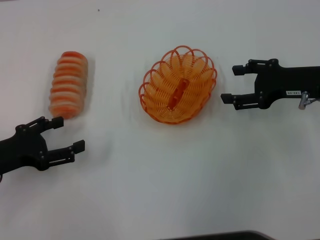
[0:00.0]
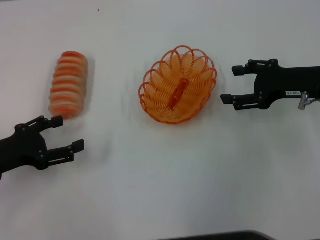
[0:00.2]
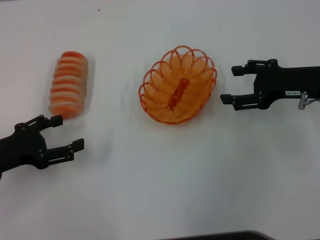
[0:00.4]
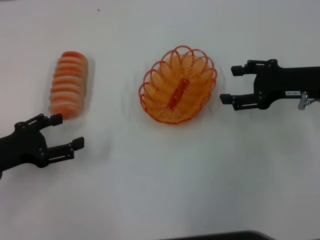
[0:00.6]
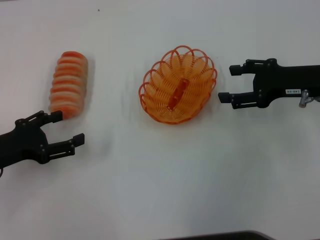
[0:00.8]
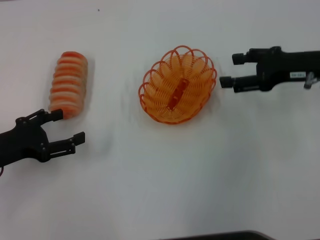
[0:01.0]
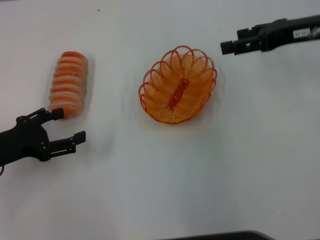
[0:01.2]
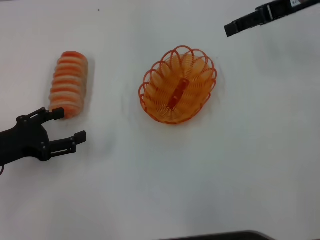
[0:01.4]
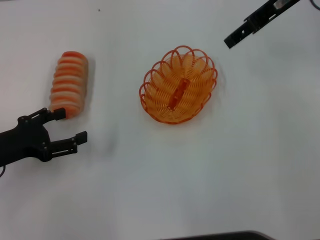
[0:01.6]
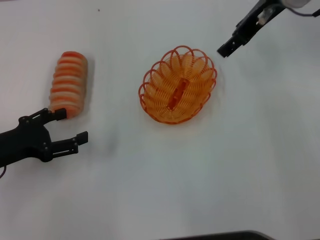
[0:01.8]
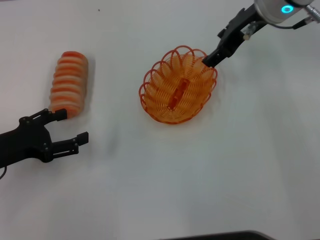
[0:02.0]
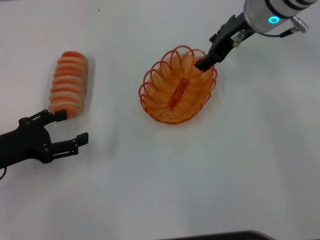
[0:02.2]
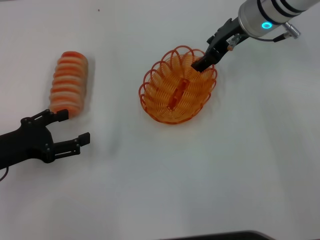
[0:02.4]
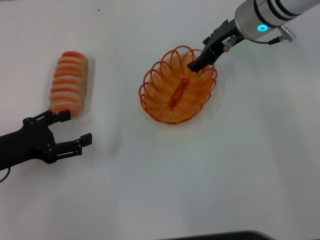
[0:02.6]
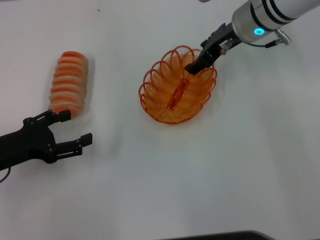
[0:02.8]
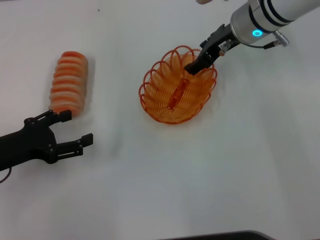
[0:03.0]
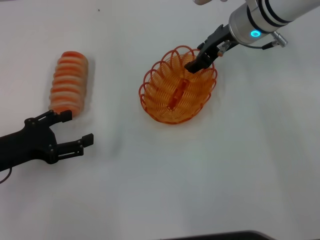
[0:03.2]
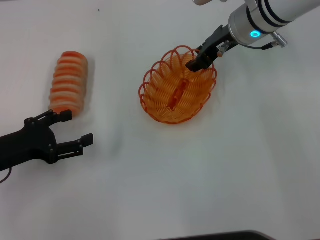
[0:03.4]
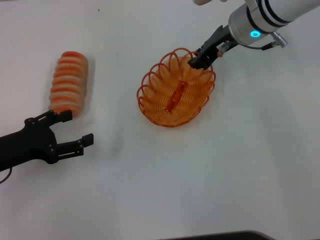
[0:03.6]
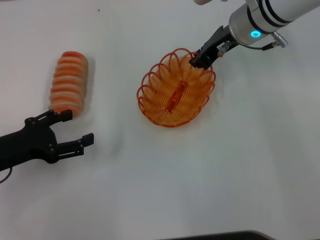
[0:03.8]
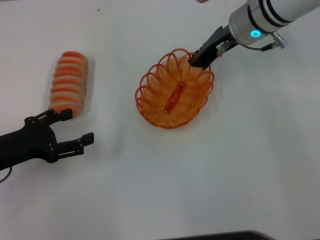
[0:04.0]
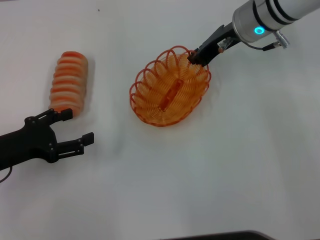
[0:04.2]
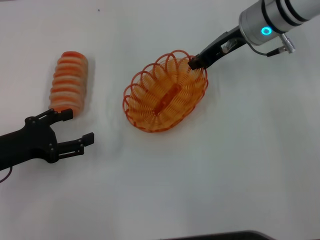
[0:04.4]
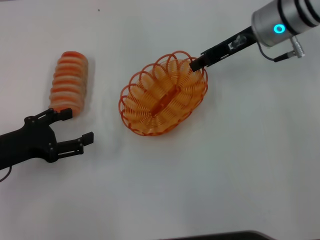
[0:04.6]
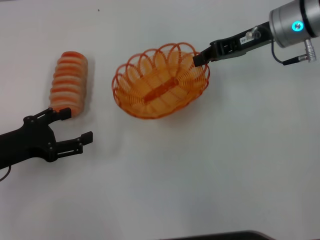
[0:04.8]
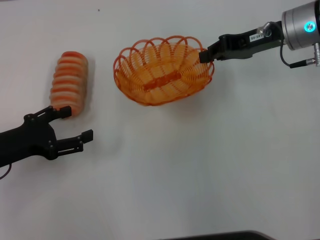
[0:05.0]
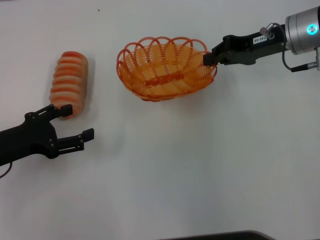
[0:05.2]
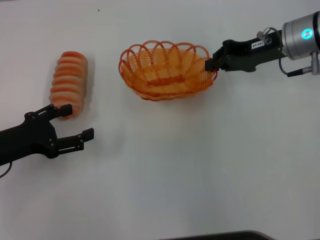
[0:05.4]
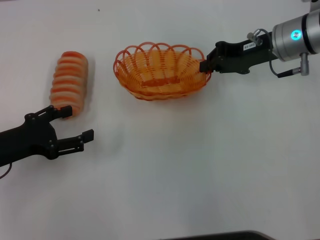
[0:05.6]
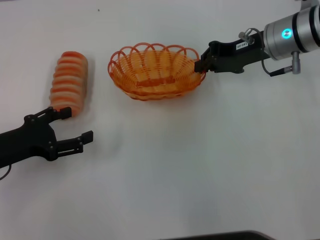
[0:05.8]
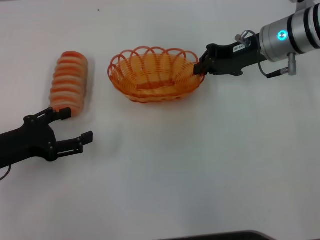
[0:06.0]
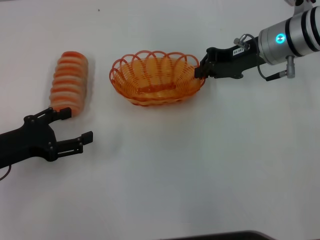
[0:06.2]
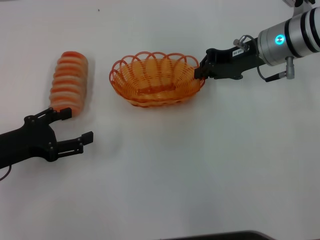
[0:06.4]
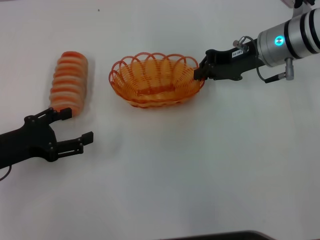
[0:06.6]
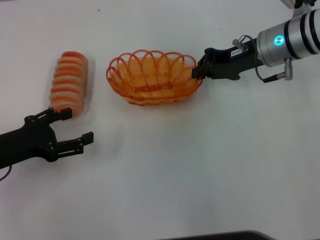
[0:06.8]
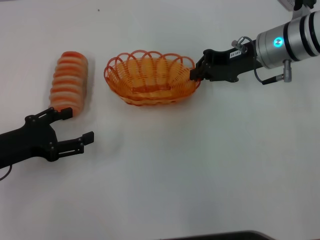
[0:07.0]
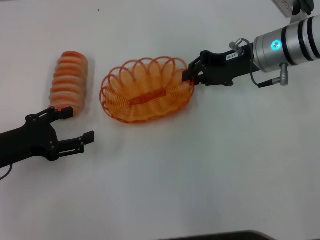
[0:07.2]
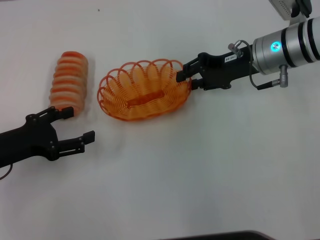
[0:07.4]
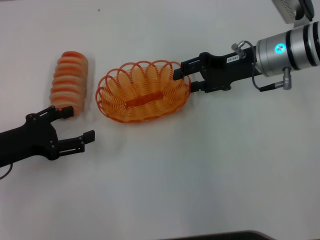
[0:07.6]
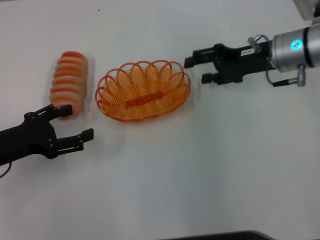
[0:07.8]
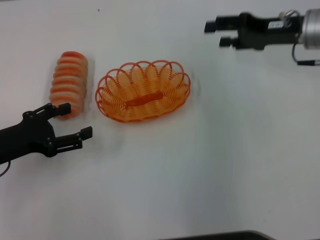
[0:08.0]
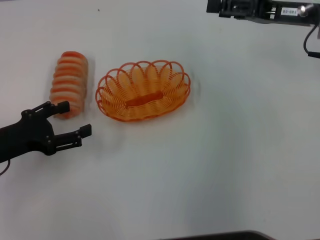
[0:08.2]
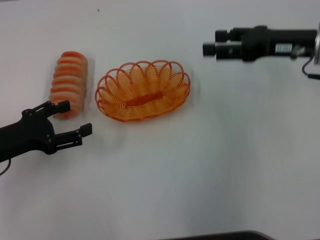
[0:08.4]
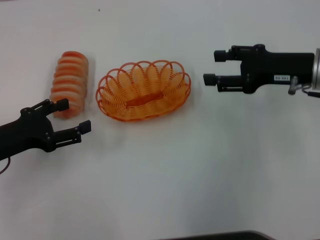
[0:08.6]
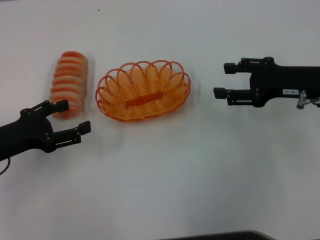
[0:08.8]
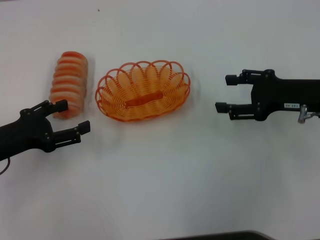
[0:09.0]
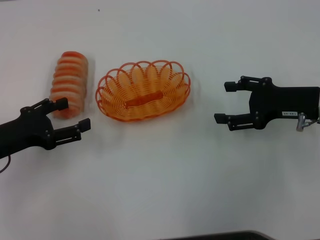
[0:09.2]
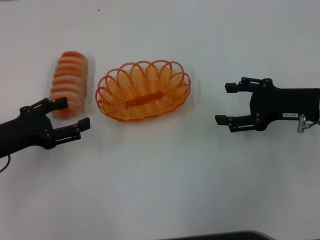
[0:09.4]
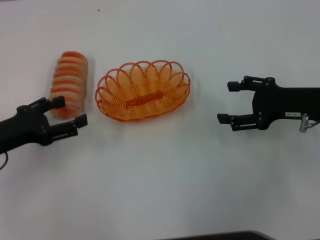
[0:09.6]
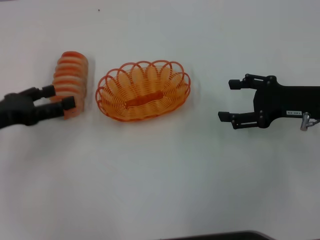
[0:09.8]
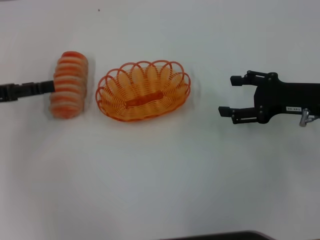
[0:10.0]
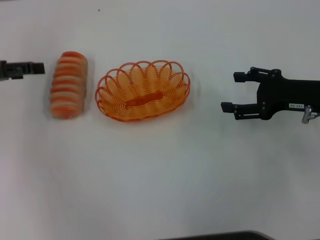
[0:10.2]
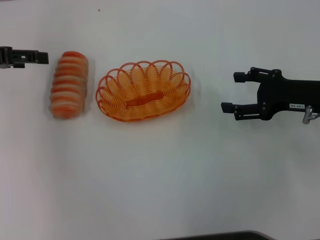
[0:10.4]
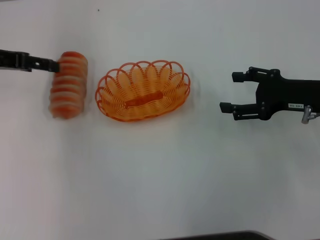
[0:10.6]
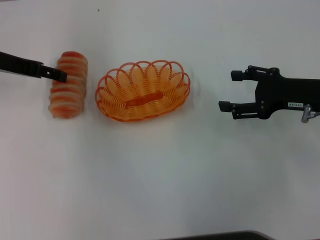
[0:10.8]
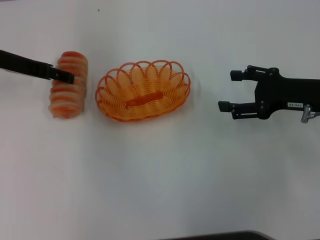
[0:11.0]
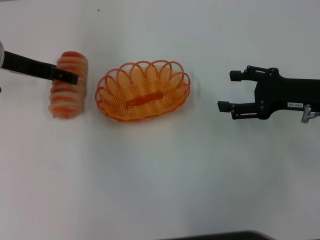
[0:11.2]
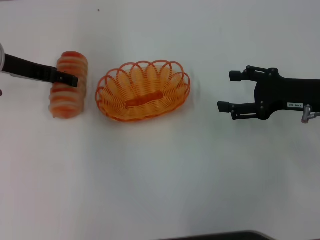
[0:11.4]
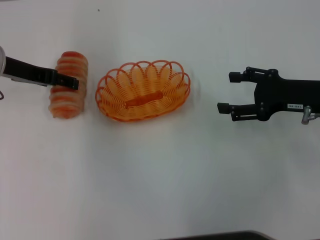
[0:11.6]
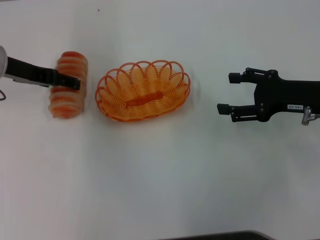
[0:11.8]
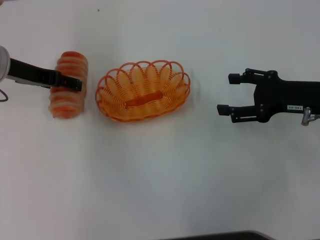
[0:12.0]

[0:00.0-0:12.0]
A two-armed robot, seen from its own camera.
Step, 0:00.0 to 0:04.6: Pick up the basket with the right gripper.
Step, 0:04.8 to 0:07.6: Place the basket in the center of view with the right gripper.
0:00.0 to 0:01.6: The right gripper moves upward, forward and to the left, some 20 cm.
0:01.6 to 0:03.0: The right gripper heads downward and to the left, covering approximately 10 cm.
0:03.0 to 0:04.4: The right gripper closes.
0:06.0 to 0:07.6: The right gripper opens.
0:07.6 to 0:09.0: The right gripper travels backward and to the right by some 10 cm.
0:09.0 to 0:10.4: The left gripper moves forward and upward, some 15 cm.
0:10.4 to 0:12.0: The left gripper heads to the right, covering about 10 cm.

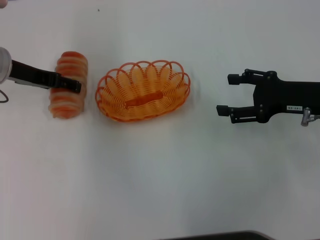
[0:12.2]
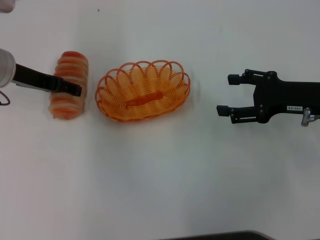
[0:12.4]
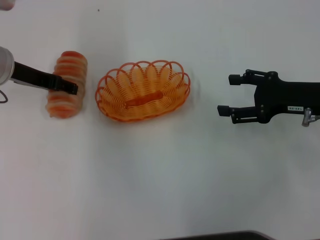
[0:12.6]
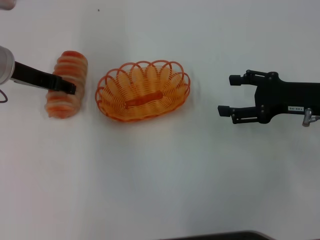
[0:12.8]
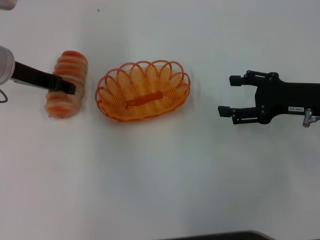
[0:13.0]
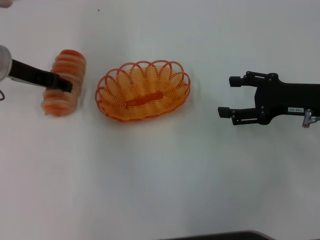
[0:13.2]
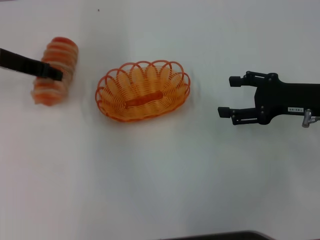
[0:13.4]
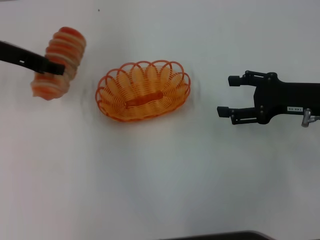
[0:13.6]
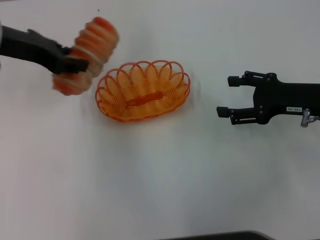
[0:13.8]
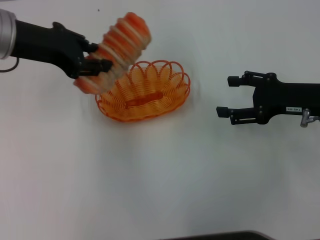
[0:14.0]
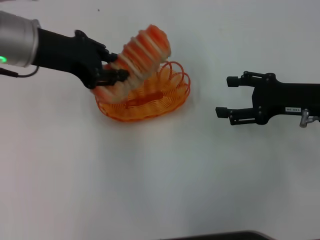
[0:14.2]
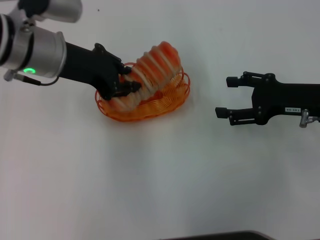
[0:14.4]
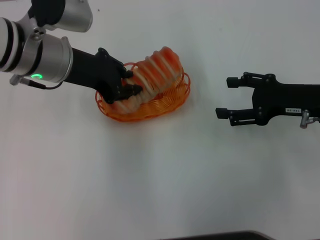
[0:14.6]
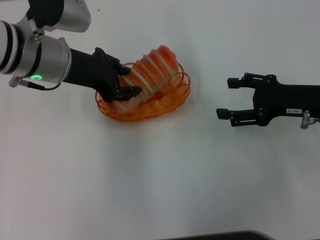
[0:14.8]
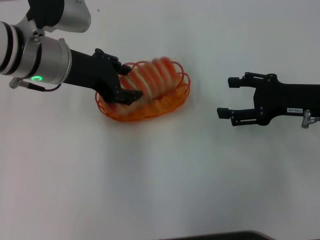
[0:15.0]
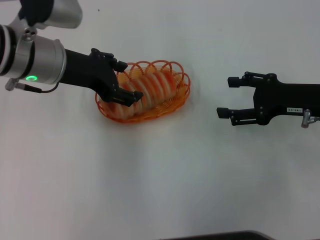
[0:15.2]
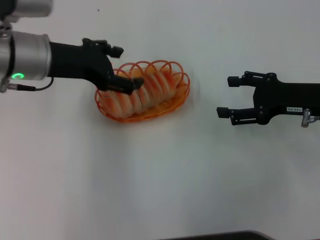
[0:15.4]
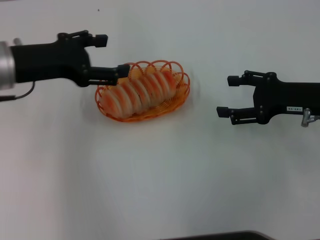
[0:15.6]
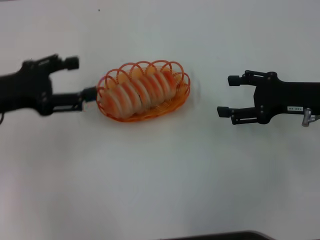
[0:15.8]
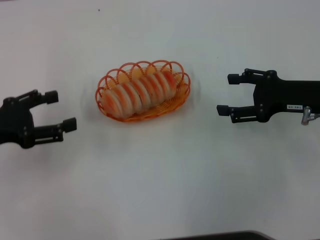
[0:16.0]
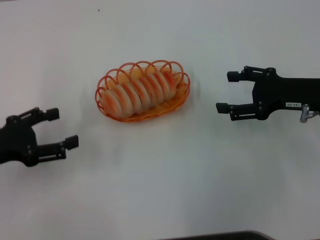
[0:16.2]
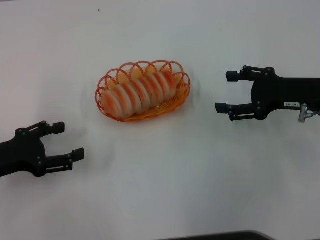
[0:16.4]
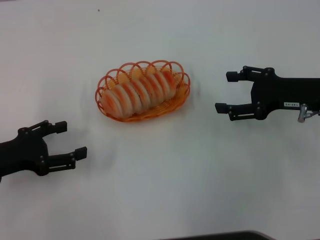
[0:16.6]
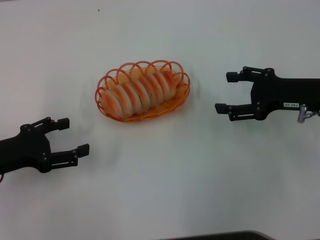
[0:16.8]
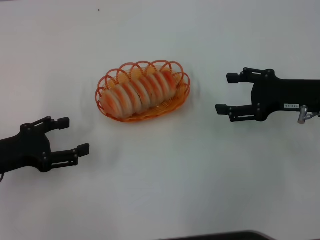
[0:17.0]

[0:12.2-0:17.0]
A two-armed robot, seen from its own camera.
Step, 0:14.0 to 0:16.0: Place the long bread into the basket with the left gripper.
0:12.2 to 0:13.8: The left gripper goes about 5 cm upward, and closes up.
0:13.8 to 0:15.4: The left gripper moves approximately 5 cm, and opens.
0:15.4 to 0:17.0: The left gripper shifts approximately 20 cm to the left, backward and downward.

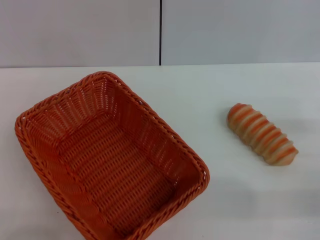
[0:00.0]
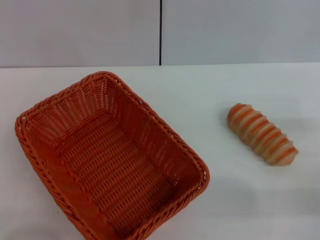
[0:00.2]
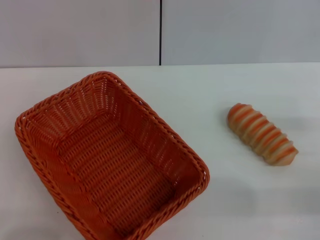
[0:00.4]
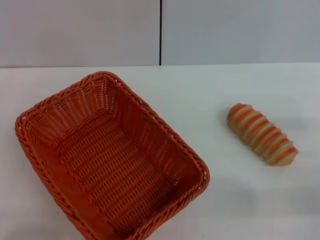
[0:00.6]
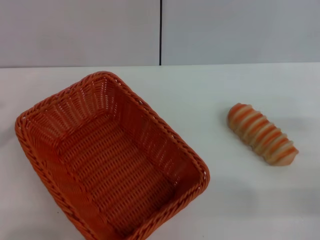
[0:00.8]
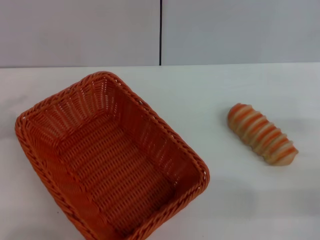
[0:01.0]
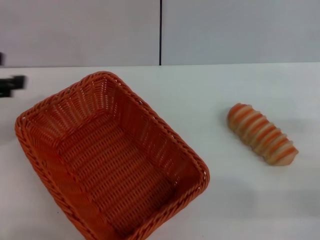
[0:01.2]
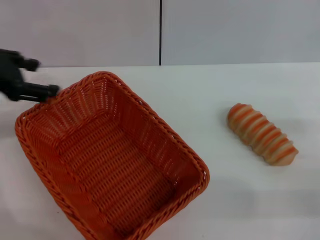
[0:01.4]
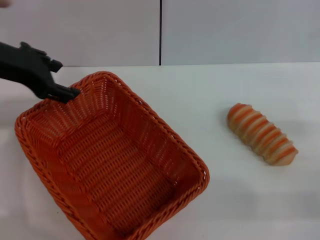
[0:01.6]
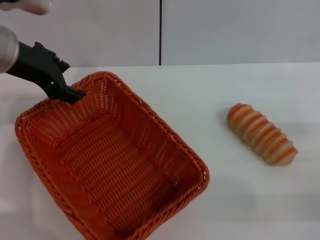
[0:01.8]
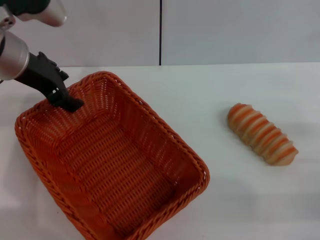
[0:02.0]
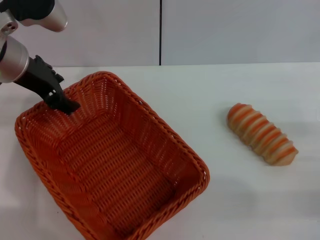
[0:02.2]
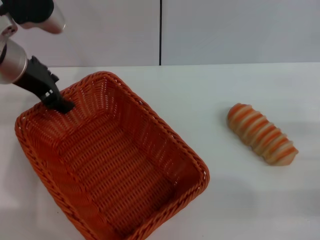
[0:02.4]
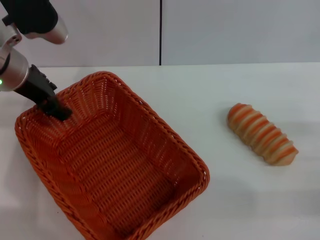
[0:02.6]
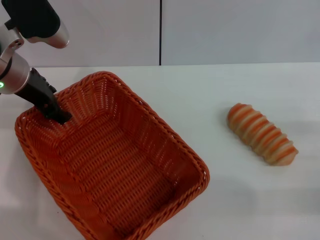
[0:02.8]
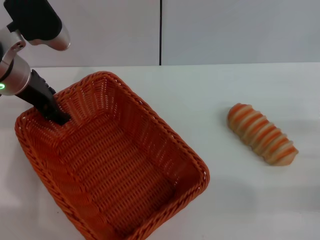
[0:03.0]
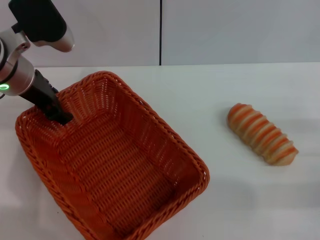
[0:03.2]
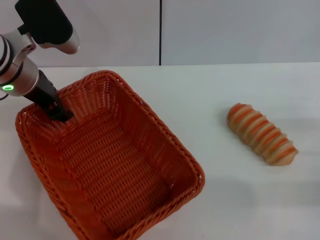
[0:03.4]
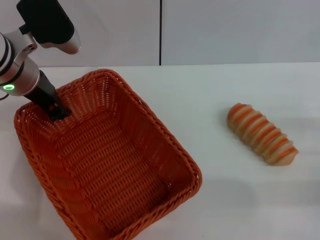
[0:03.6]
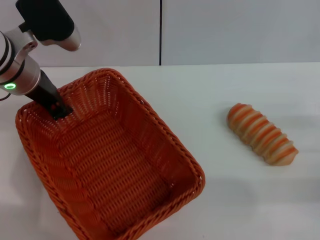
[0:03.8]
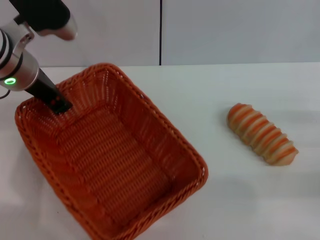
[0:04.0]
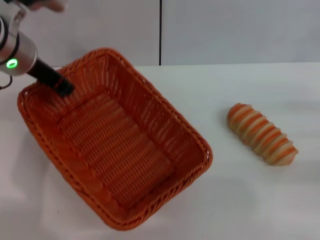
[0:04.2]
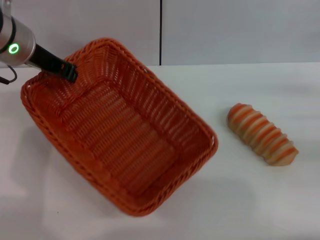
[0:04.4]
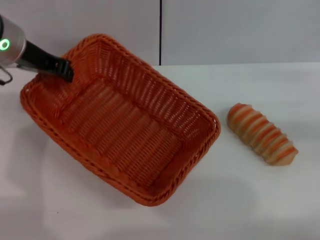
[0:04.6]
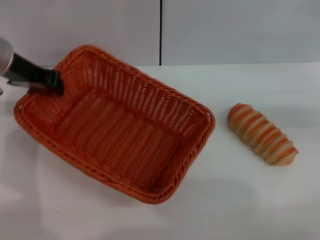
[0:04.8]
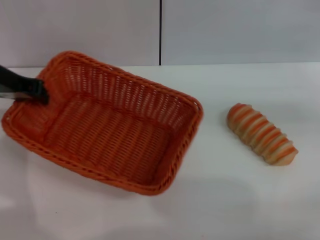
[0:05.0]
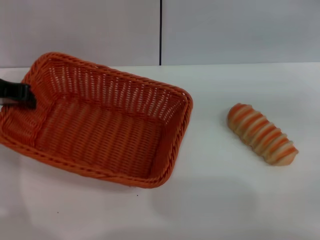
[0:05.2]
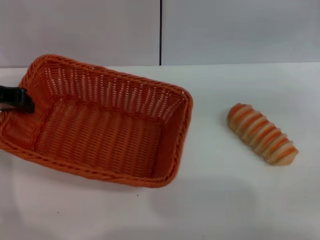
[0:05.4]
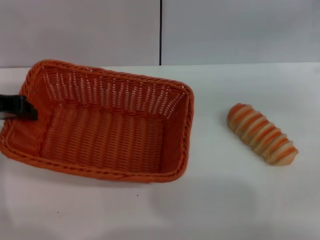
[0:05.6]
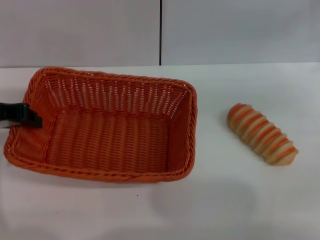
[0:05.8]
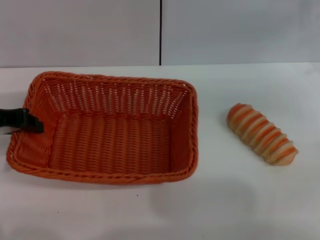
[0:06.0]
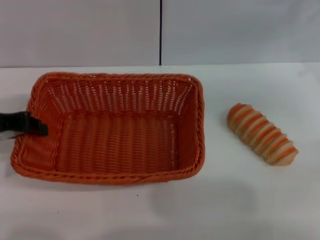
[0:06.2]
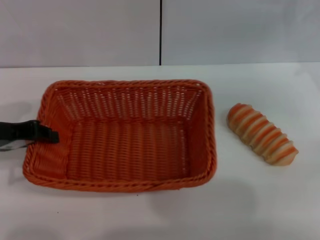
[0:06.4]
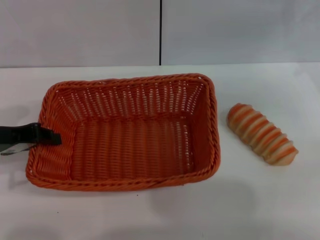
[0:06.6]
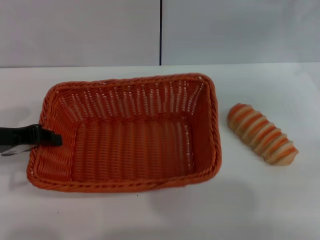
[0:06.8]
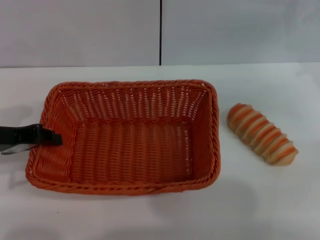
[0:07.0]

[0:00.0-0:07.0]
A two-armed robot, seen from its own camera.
Step, 0:00.0 to 0:04.6: Pick up the light basket with the left gripper.
0:00.0 to 0:01.4: The left gripper goes about 30 cm upward, forward and to the right.
0:01.4 to 0:02.8: The left gripper is displaced to the right, downward and forward by about 10 cm.
0:02.8 to 0:04.2: The left gripper closes, while the right gripper moves about 5 cm.
0:04.2 to 0:05.6: The right gripper goes approximately 15 cm forward and upward; the left gripper heads to the left and backward, covering about 10 cm.
0:05.6 to 0:07.0: The left gripper moves about 5 cm.
